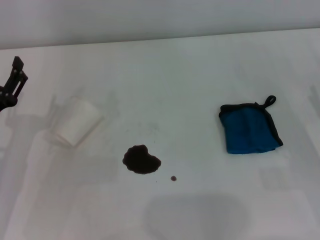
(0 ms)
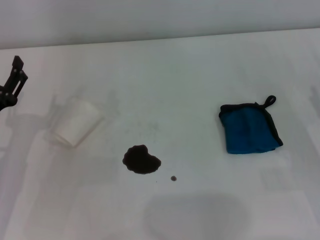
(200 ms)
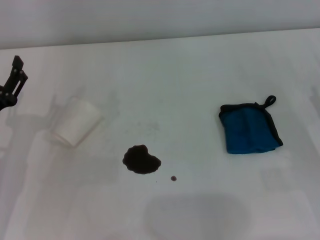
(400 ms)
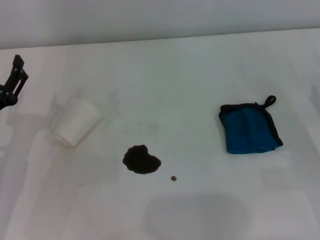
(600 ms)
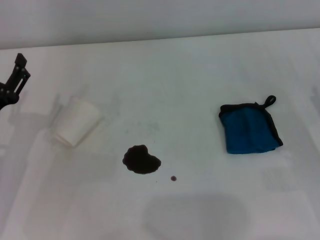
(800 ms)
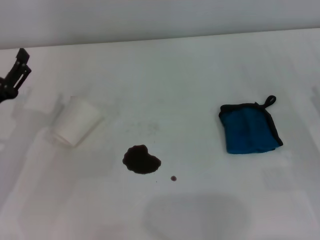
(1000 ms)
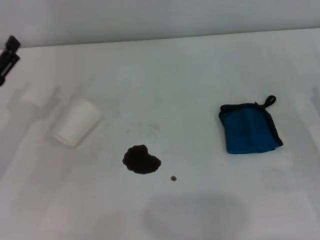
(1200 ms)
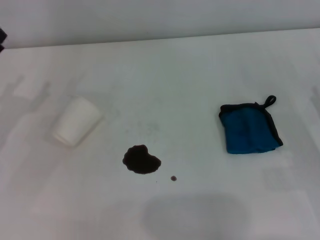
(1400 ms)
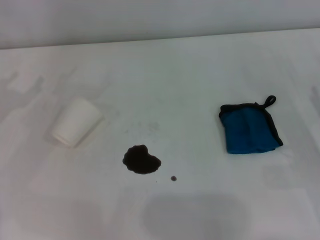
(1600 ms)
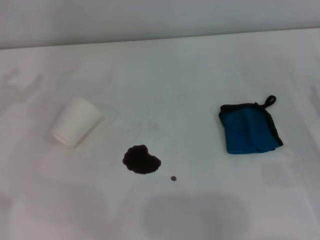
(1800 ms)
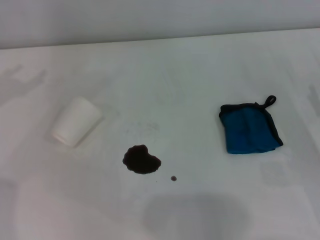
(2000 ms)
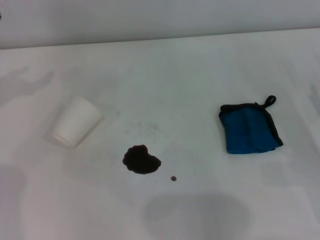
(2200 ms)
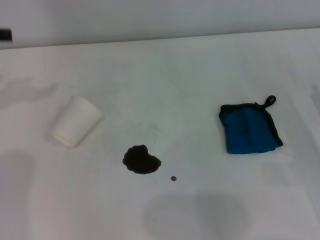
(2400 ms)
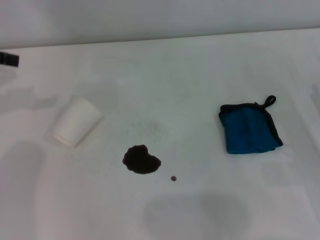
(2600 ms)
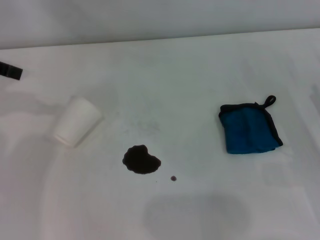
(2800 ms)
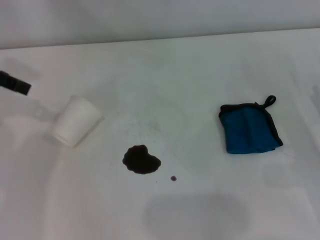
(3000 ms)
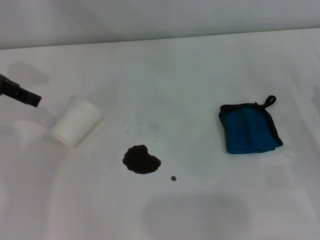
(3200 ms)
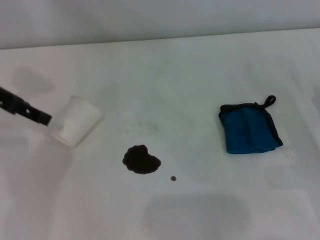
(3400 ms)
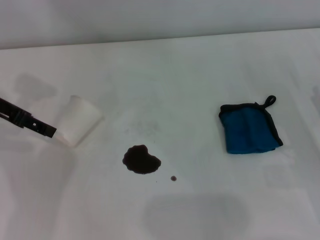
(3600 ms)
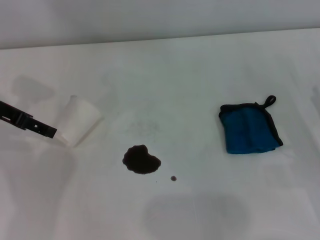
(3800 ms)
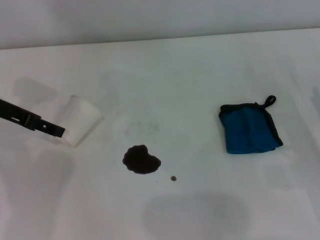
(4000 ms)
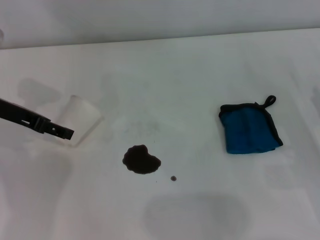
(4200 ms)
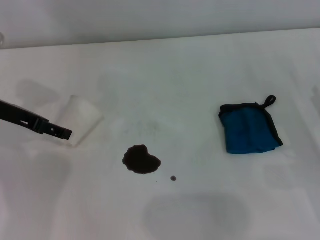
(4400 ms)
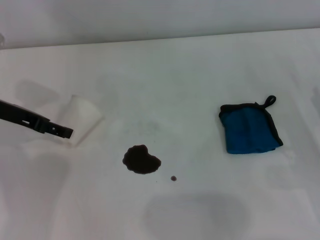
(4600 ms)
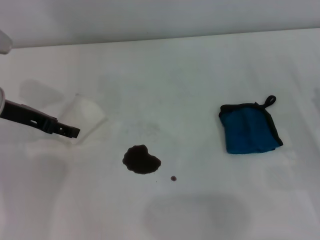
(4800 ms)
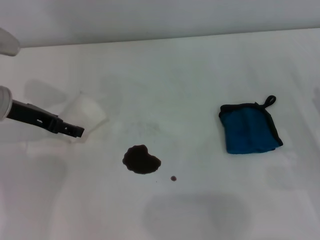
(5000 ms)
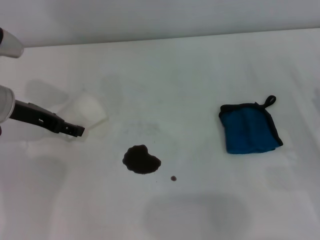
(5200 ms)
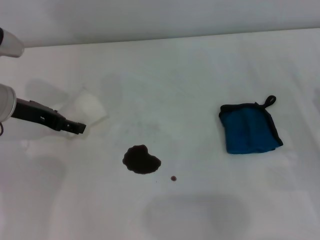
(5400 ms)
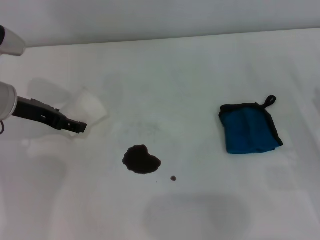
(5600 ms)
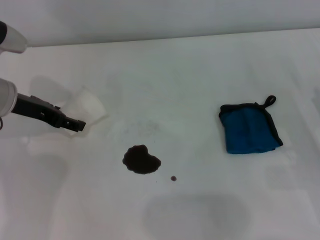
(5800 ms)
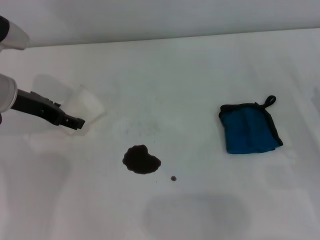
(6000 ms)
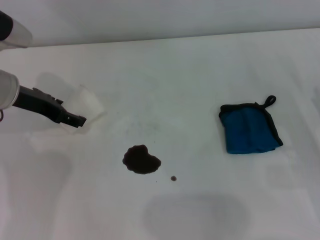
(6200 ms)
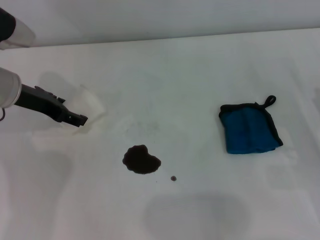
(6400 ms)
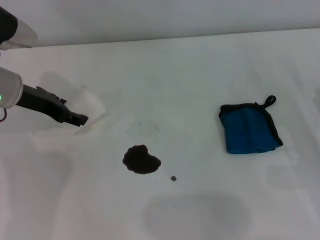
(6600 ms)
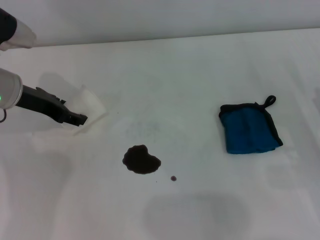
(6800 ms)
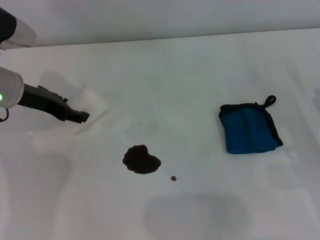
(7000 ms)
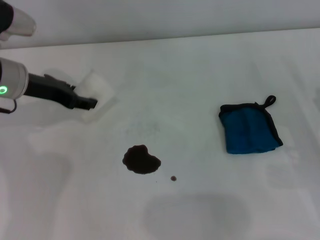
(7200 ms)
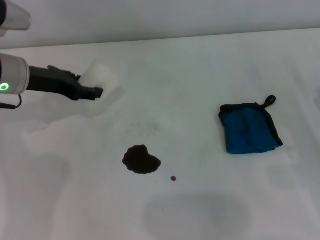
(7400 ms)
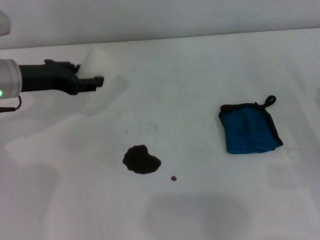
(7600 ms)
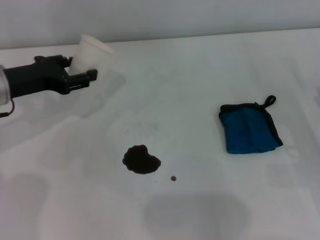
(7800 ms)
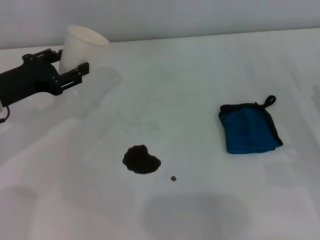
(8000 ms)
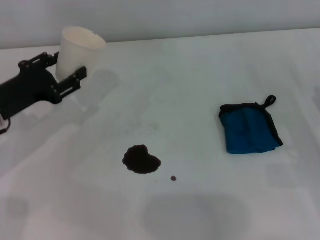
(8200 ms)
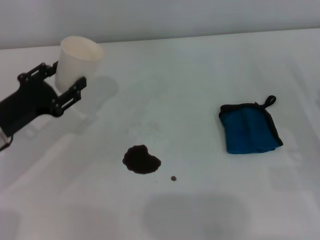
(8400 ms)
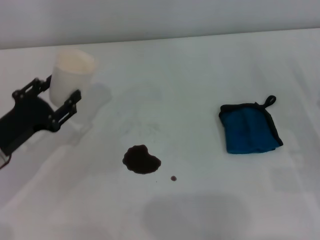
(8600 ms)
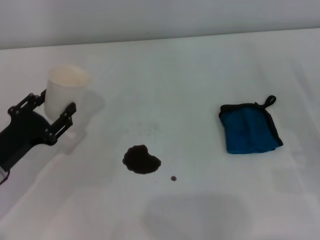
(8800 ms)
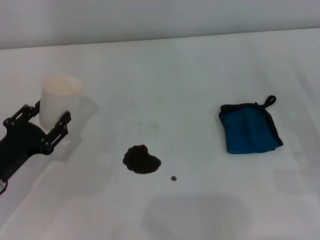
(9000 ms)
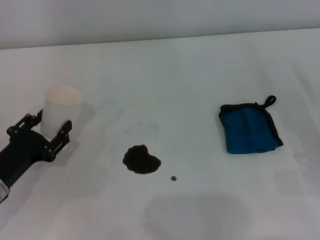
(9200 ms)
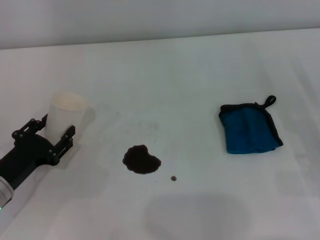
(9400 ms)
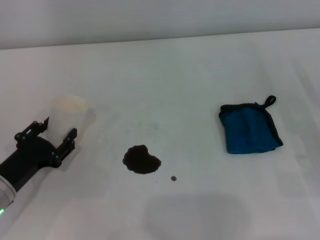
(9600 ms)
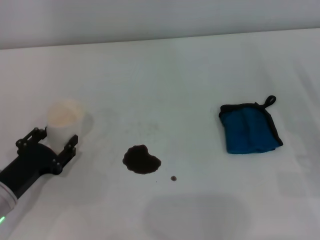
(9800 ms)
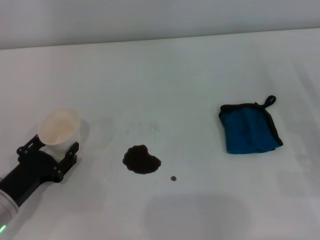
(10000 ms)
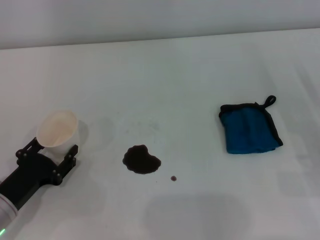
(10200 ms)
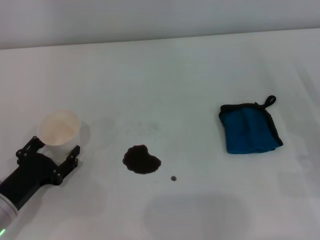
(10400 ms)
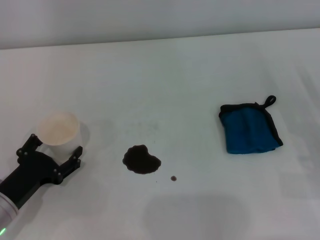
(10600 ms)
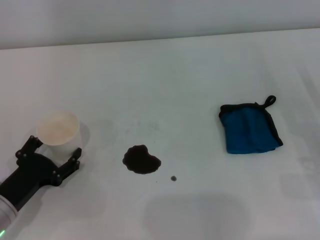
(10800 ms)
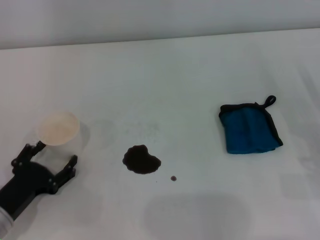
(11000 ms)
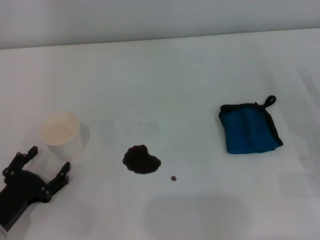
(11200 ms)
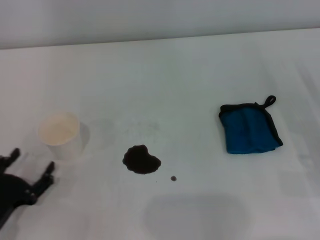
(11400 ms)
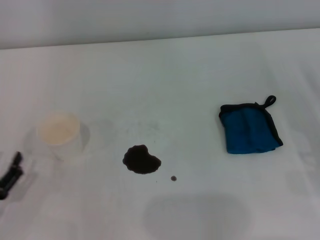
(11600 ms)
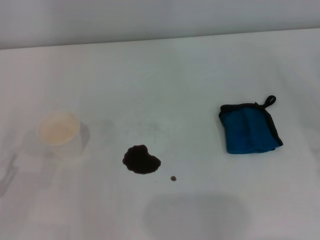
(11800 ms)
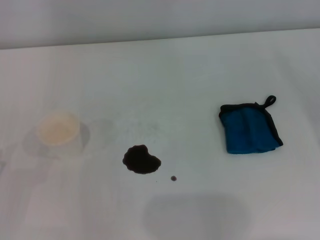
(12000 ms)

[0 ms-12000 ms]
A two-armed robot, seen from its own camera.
Step, 0 ms to 6800 ms: Grasp the paper cup with the left gripper.
Step, 7000 ms to 10600 ms: Stand the paper cup upright with the left gripper.
0 ms to 1600 ms: The left gripper travels to the left, forward and upward by about 15 cm.
3000 ms to 4400 ms: The left gripper heads downward, covering about 10 cm.
4400 ms to 6000 ms: There are only small adjustments of the grippers.
6000 ms to 7600 ms: The left gripper closes.
7600 ms to 9000 ms: The left gripper travels backward and downward by roughly 20 cm.
9000 ms to 10400 ms: There are only small adjustments of the grippers.
10400 ms to 12000 ms: The left gripper moves to the left and backward, approximately 10 cm, and opens.

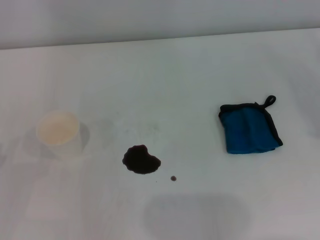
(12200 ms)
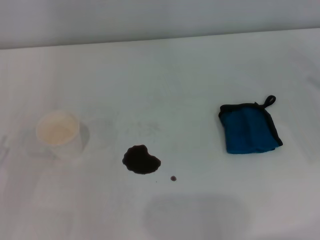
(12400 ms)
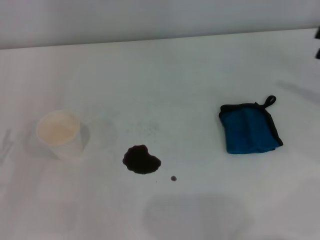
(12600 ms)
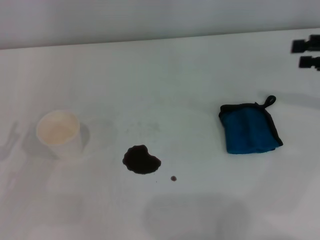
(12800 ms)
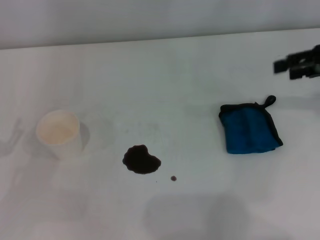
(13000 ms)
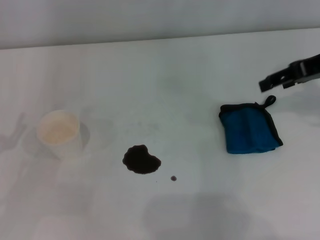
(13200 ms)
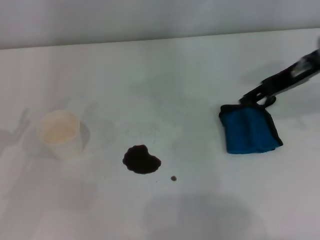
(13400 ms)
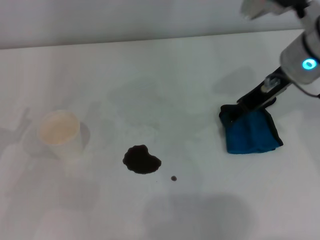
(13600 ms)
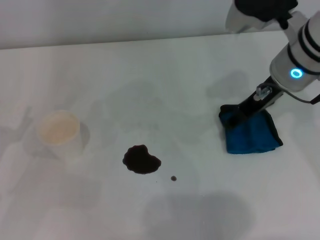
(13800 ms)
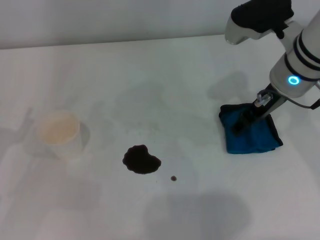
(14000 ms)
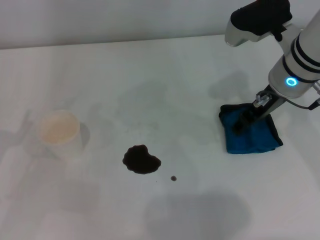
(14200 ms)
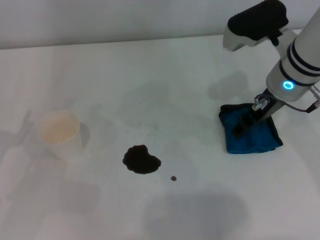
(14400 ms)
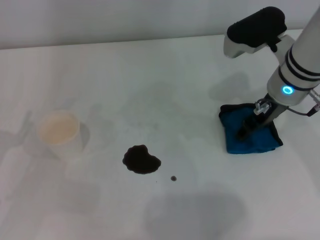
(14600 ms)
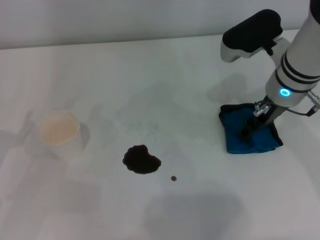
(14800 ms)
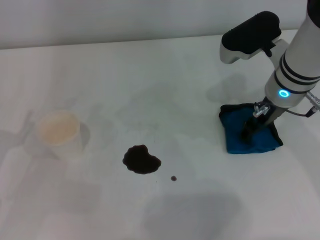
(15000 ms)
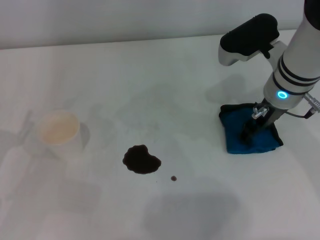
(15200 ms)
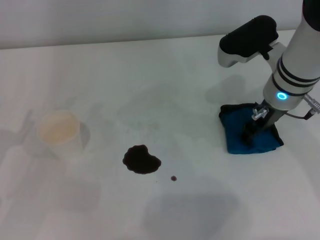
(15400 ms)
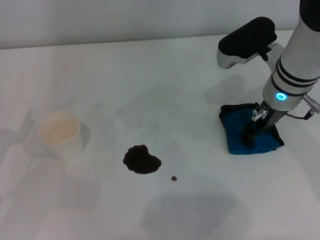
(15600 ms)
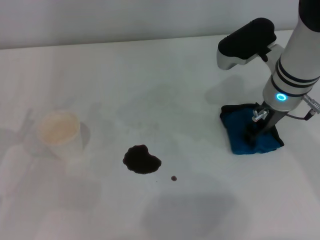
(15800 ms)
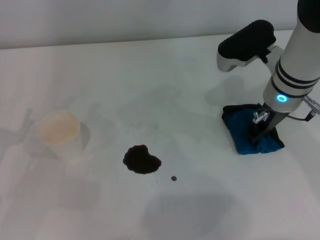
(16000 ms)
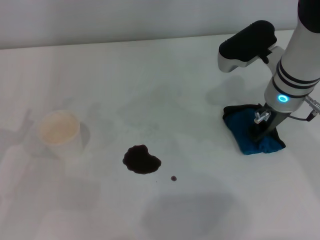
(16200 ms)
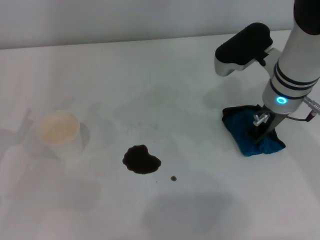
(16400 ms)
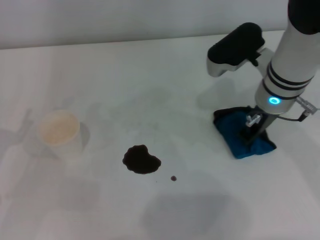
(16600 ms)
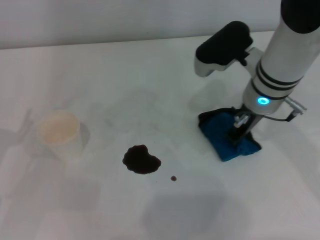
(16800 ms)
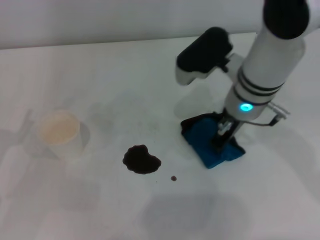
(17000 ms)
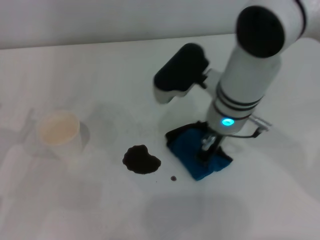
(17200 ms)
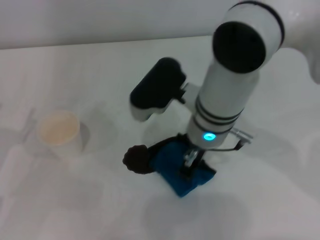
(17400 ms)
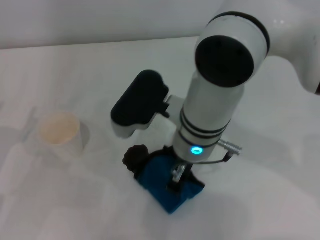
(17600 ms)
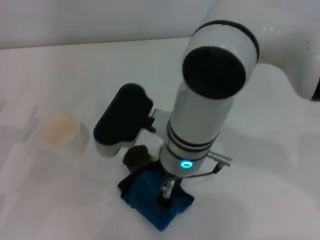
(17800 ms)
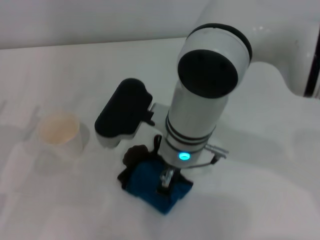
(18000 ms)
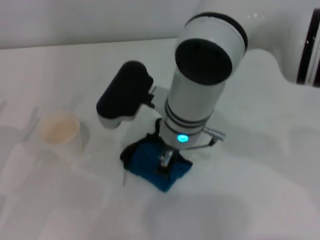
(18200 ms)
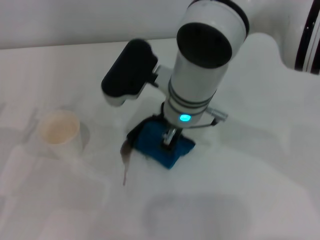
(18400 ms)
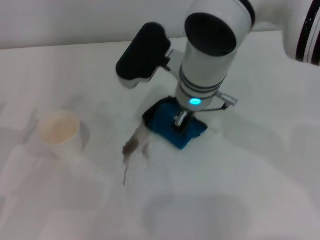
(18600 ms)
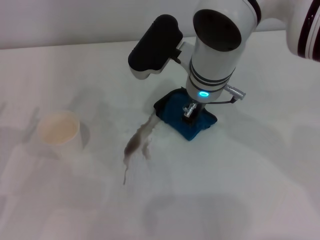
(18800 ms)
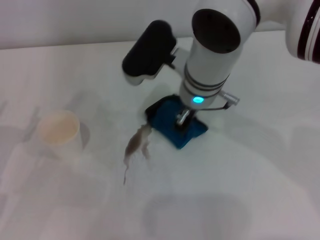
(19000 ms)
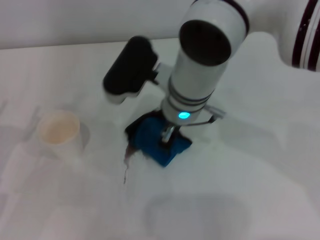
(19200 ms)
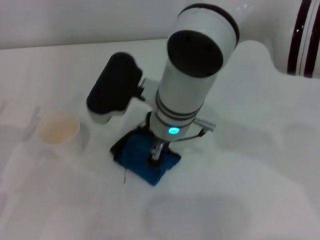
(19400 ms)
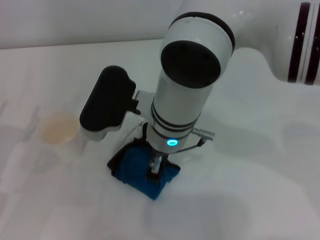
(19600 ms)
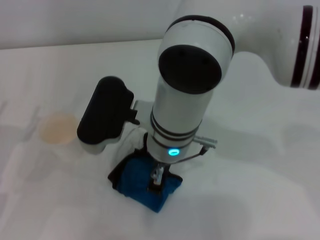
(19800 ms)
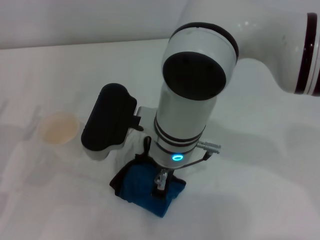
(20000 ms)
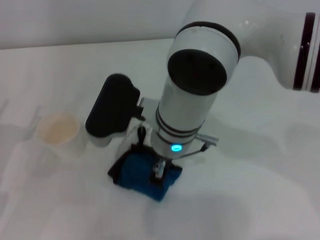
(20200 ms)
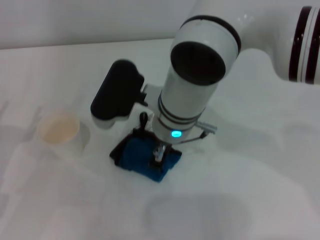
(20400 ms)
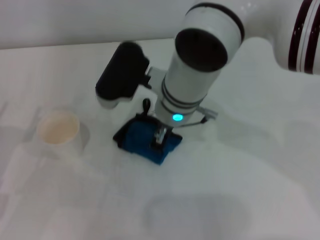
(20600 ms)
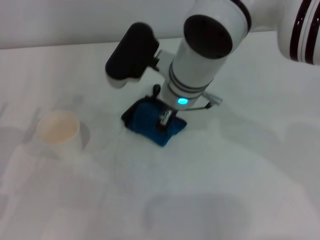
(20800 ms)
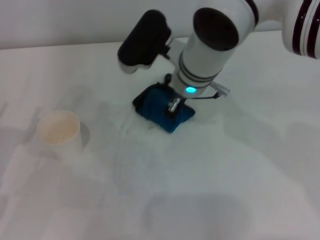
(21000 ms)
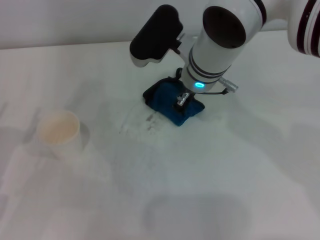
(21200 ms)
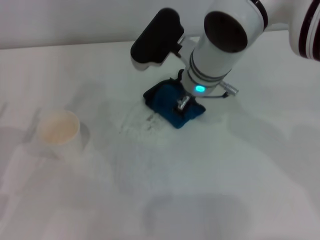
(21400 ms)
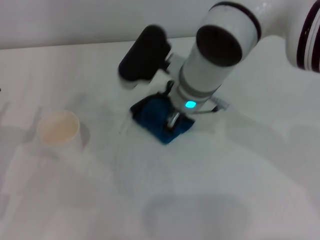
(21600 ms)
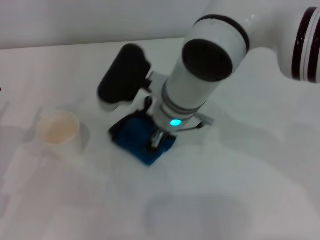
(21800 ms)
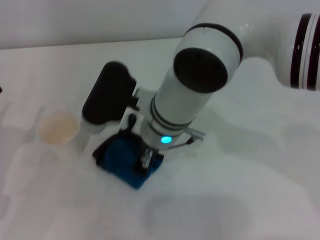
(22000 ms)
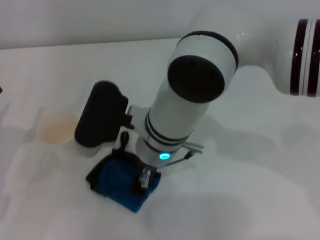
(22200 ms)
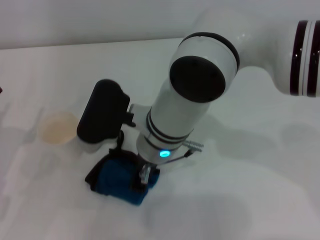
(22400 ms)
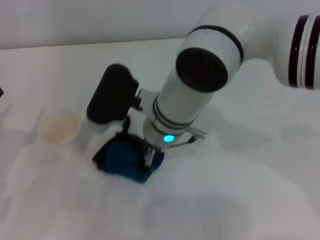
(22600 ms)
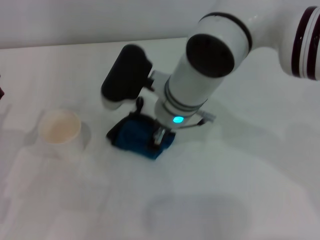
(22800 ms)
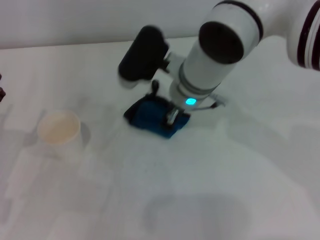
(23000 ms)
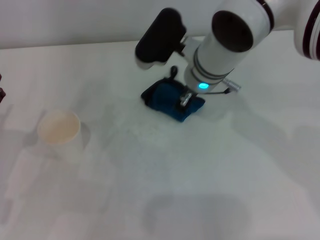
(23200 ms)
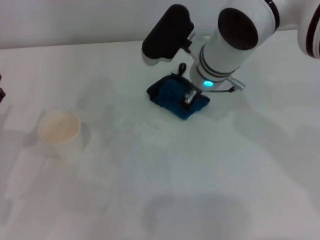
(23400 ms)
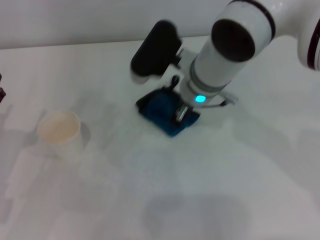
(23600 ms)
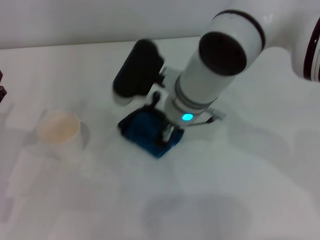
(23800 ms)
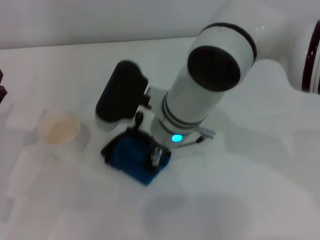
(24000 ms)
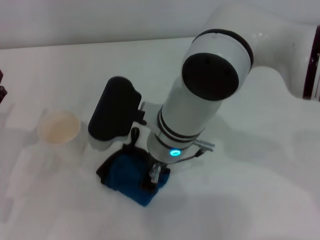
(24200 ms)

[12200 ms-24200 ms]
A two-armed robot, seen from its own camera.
Step, 12200 ms to 16400 ms: Grasp the rag with the right gripper.
12200 ms to 13800 ms: The right gripper travels to the left, forward and upward by roughly 30 cm.
13800 ms to 15200 ms: The right gripper is displaced downward by some 5 cm.
15200 ms to 16600 ms: The right gripper closes its fingers.
16600 ms to 18200 ms: The right gripper goes about 15 cm to the left.
18200 ms to 19800 ms: The right gripper goes forward and returns, approximately 5 cm each way.
19800 ms to 21200 ms: The right gripper goes about 10 cm forward and to the right.
21200 ms to 22600 ms: The right gripper heads backward and to the left, covering some 10 cm.
22600 ms to 24200 ms: The right gripper reaches approximately 10 cm forward, then returns.
